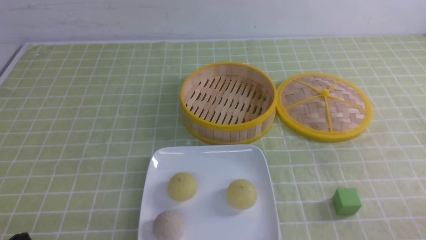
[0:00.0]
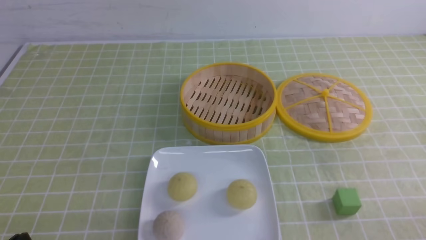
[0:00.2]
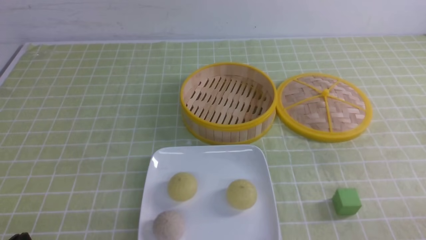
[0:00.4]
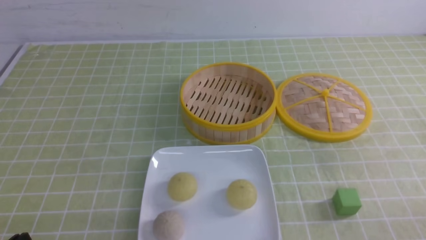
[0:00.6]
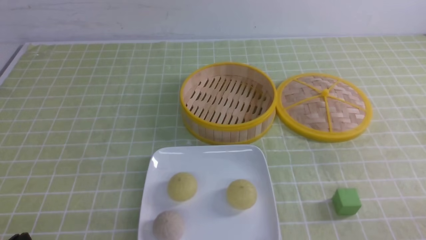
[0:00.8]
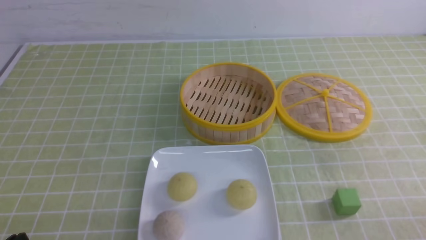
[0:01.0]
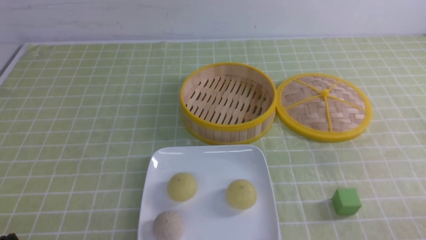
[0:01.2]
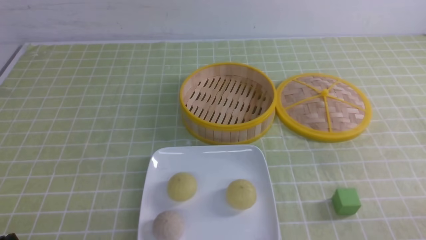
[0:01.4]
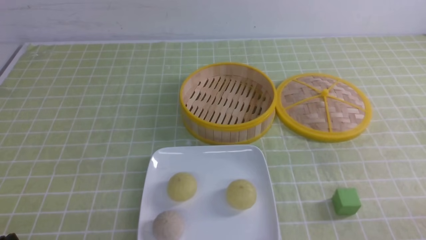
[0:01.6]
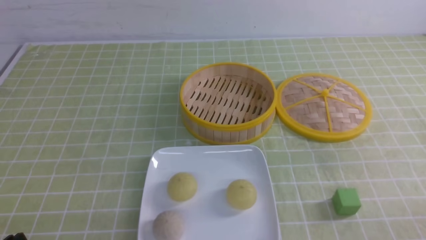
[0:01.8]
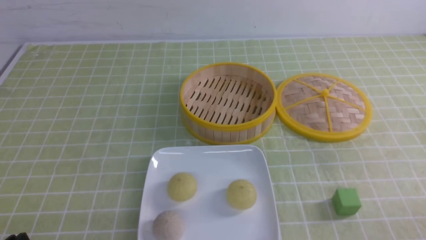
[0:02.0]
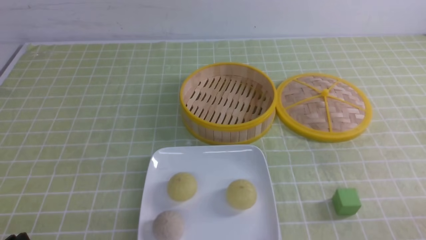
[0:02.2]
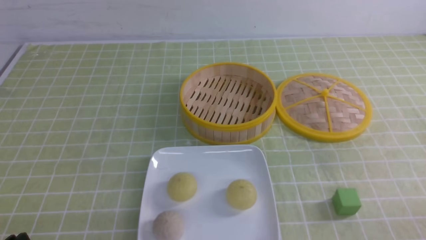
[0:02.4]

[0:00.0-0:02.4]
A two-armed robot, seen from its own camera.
0:00.0 to 0:01.2: Both grippers stay about where they are.
0:01.2 to 0:02.4: Both grippers stay about where they are.

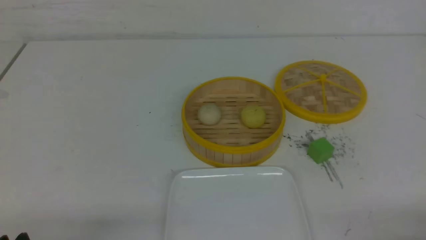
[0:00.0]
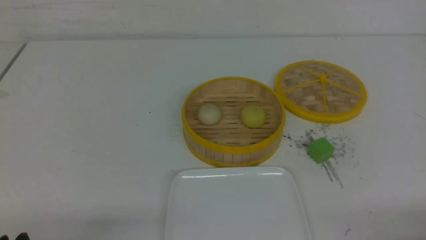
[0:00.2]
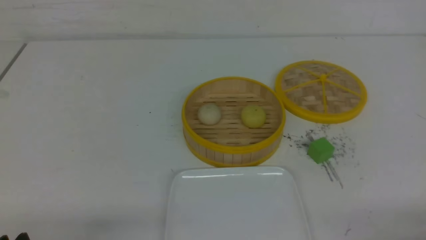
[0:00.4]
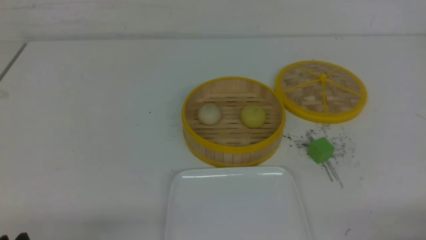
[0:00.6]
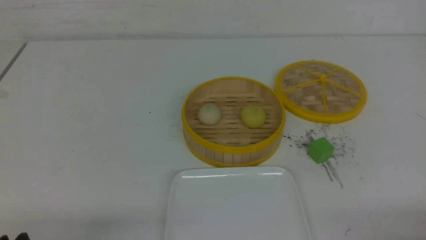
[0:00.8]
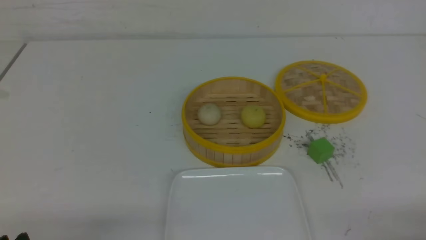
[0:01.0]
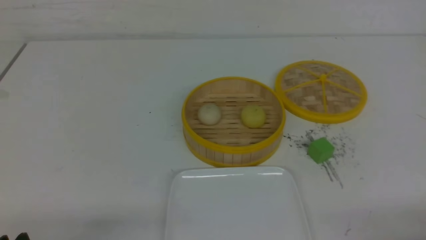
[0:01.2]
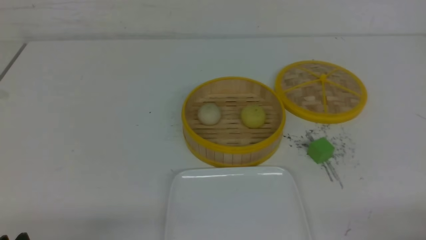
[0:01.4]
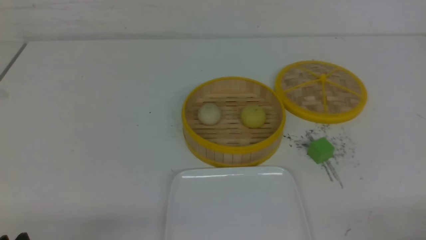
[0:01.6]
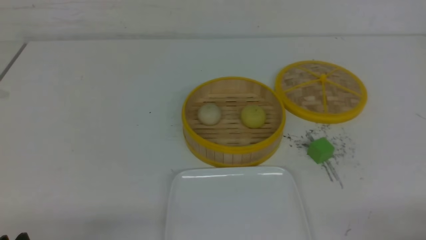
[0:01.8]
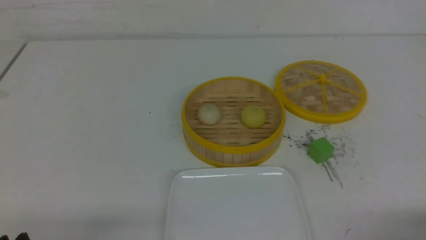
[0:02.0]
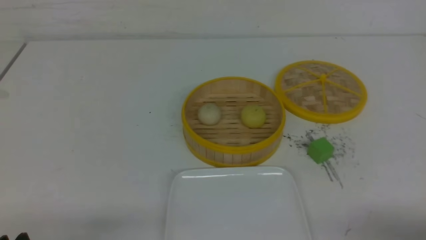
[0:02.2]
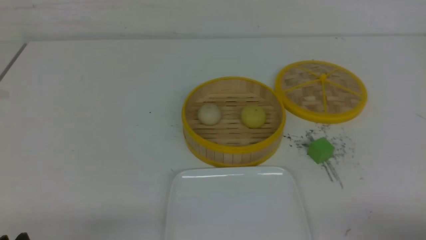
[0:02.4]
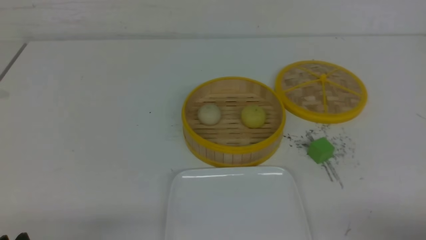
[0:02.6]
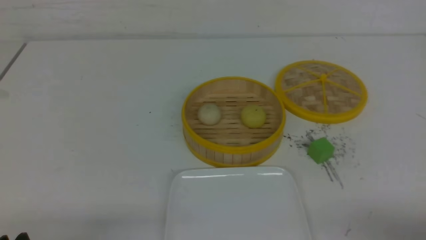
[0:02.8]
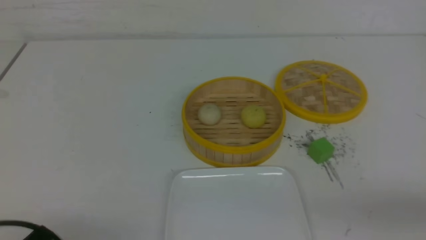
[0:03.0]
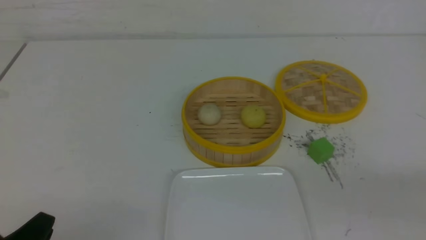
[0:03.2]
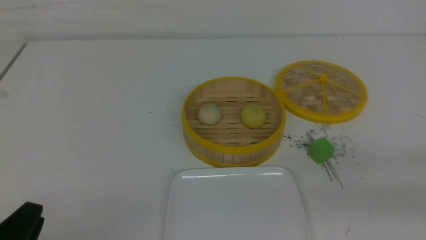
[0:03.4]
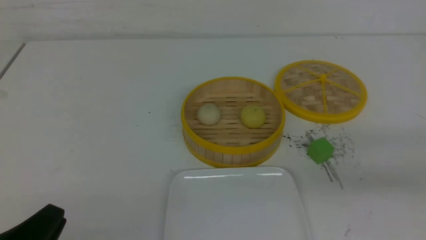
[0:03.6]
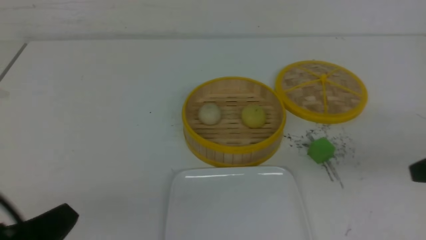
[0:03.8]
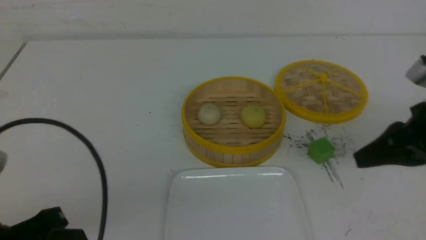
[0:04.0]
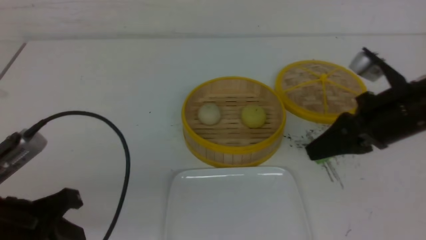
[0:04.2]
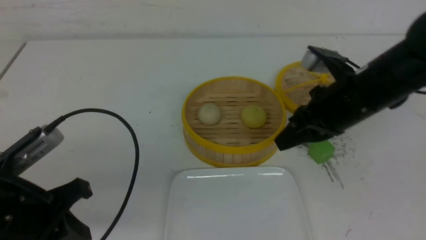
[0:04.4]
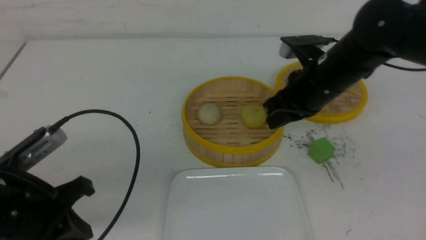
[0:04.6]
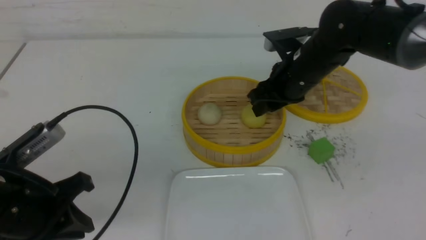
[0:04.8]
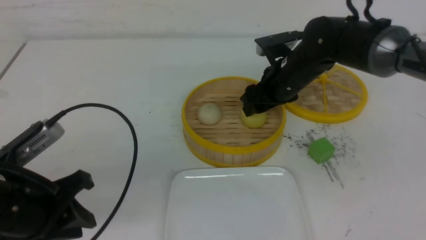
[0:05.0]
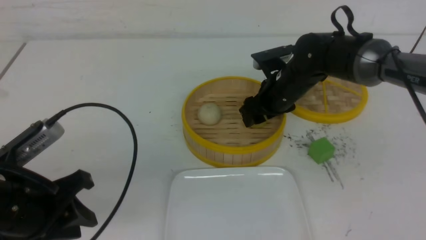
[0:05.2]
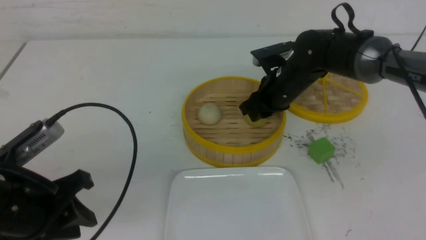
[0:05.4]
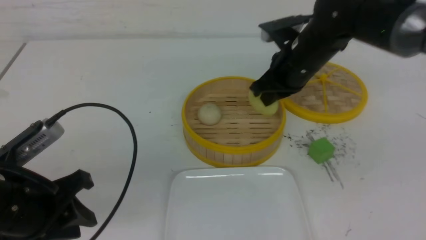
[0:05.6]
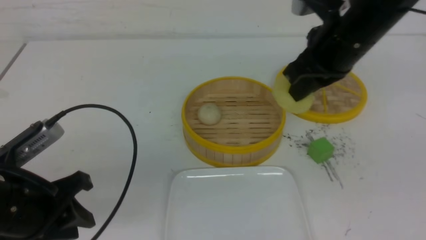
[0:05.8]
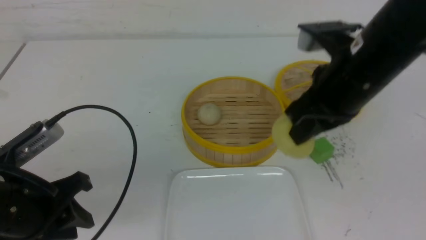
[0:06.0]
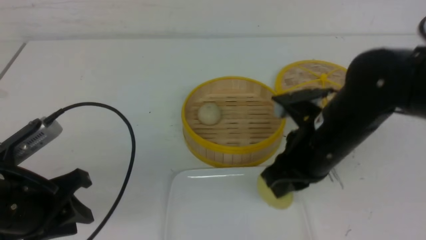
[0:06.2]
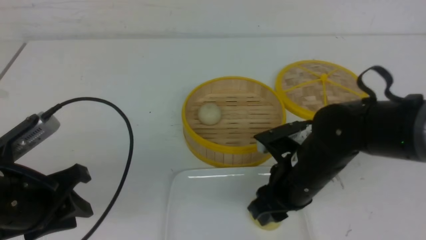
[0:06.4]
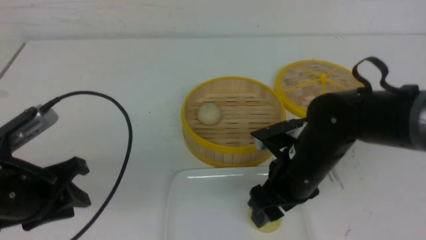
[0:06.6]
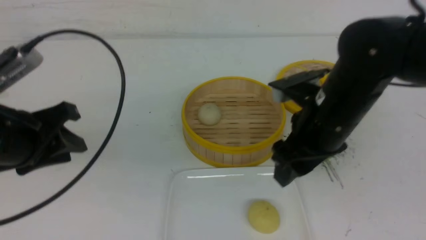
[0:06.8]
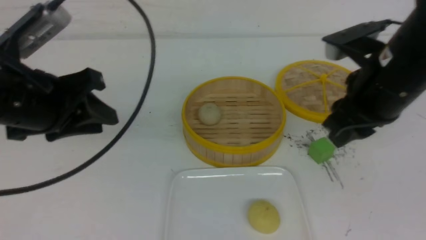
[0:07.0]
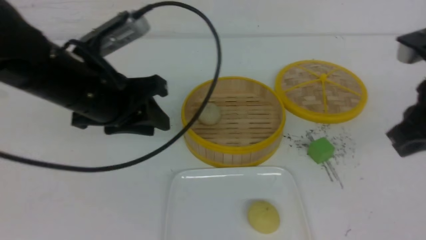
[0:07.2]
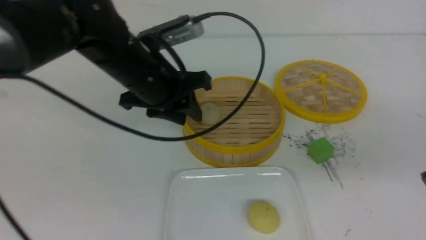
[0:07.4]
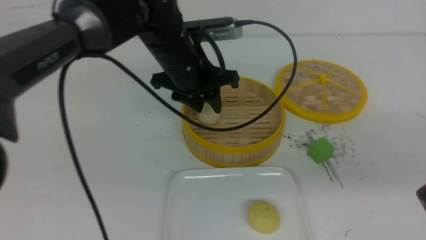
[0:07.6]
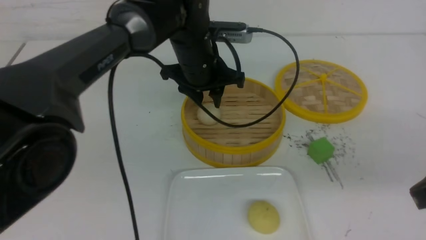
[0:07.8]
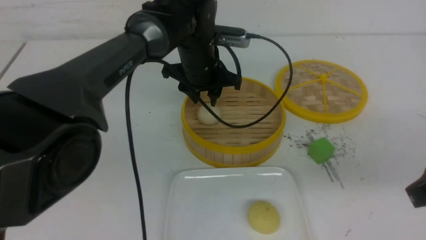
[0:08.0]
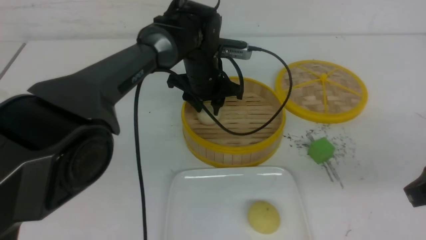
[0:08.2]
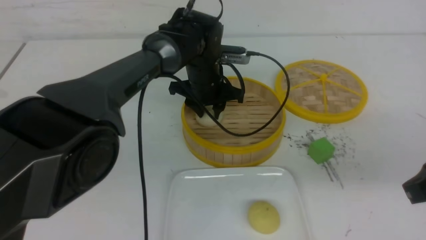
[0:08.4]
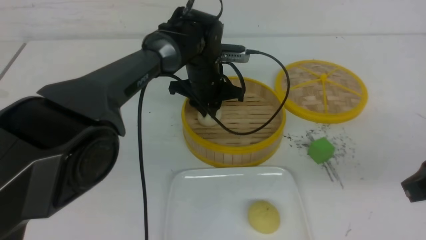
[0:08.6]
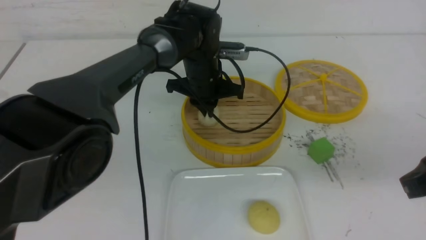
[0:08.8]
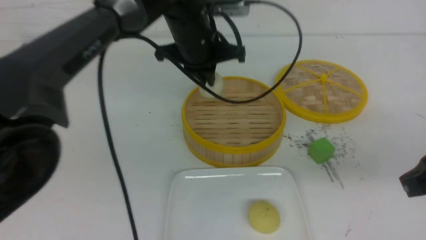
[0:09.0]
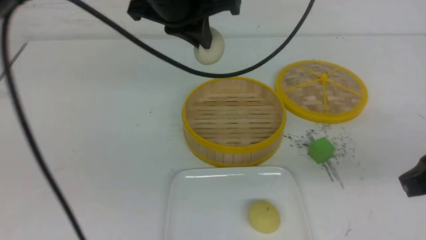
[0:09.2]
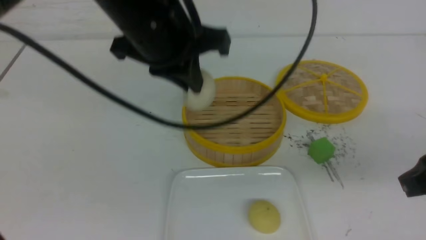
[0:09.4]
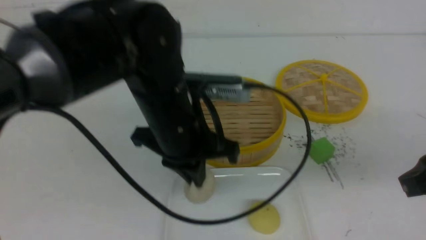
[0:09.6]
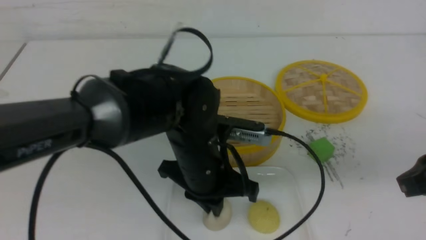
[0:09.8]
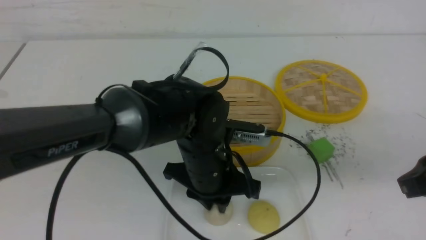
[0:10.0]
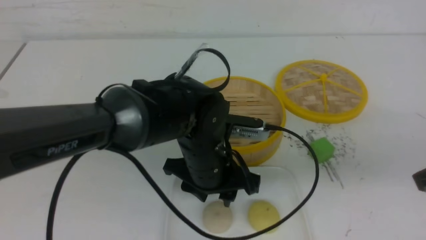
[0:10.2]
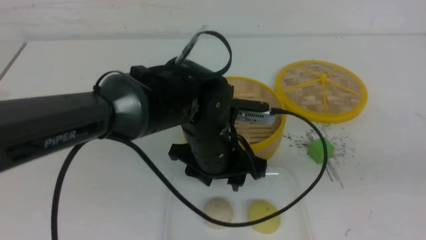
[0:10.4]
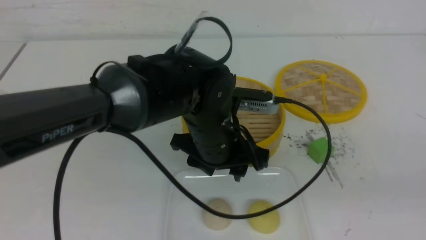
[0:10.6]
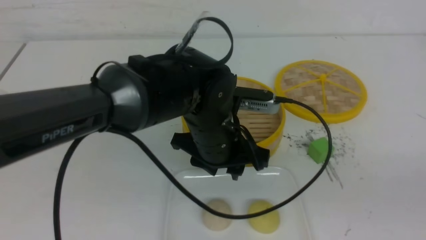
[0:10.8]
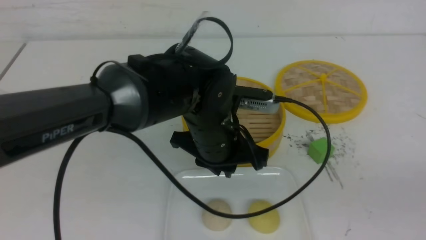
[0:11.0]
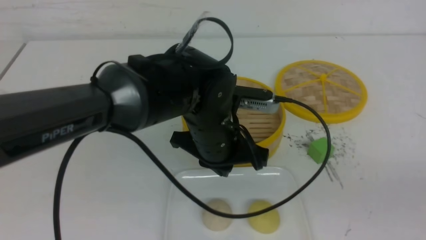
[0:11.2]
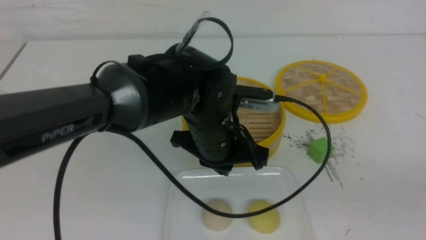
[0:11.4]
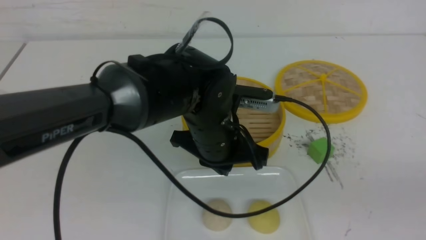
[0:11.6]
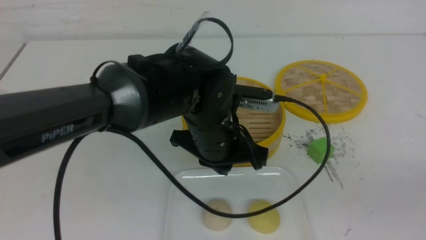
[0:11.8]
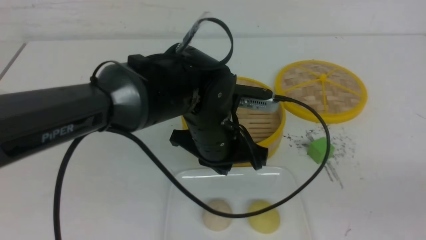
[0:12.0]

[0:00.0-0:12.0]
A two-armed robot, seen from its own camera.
Step, 0:00.0 to 0:05.4: use the right arm to grab the steamed stuffed bun that is closest to it.
Step, 0:05.6 to 0:06.6: use the right arm to put the steamed stuffed bun into the plate.
Step, 0:06.8 to 0:08.4: use the left arm to grab the steamed stuffed bun that is closest to it.
Step, 0:08.8 to 0:10.2: use the left arm to put the steamed stuffed bun into the plate.
0:00.0 to 0:01.6: Both grippers stay put.
0:03.0 to 0:04.4: The left gripper goes approximately 10 cm forward and upward, and closes up, while the right gripper is displaced forward and to the left by some 30 cm.
0:04.4 to 0:06.0: The left gripper opens, while the right gripper reaches about 10 cm forward, then returns, and opens, then closes again.
0:06.0 to 0:07.6: The right gripper shifts some 15 cm to the right and backward, and opens, then closes once more. Meanwhile the left gripper is displaced forward and to the right by approximately 30 cm.
0:07.6 to 0:09.0: The left gripper closes its fingers.
0:09.0 to 0:10.4: The left gripper shifts approximately 15 cm backward and downward, and opens its fingers, while the right gripper heads backward and upward, covering approximately 10 cm.
0:10.4 to 0:12.0: The left gripper closes up. Meanwhile the right gripper heads downward and backward, covering roughly 10 cm.

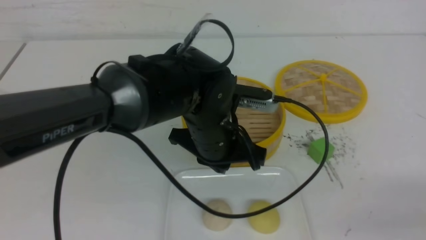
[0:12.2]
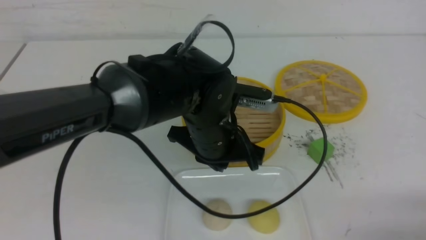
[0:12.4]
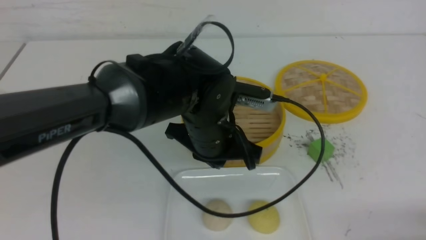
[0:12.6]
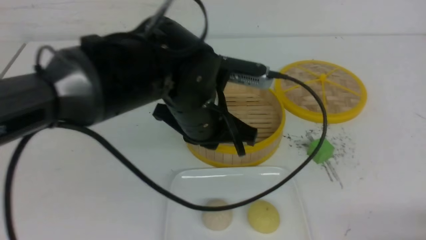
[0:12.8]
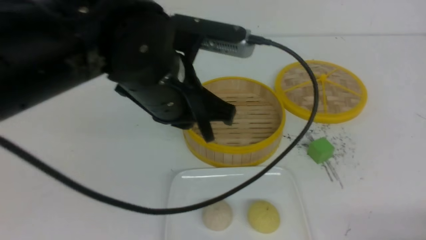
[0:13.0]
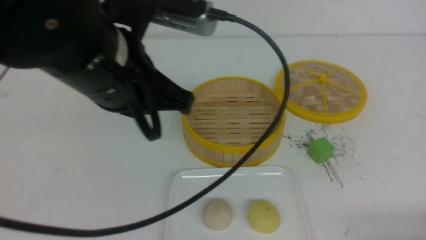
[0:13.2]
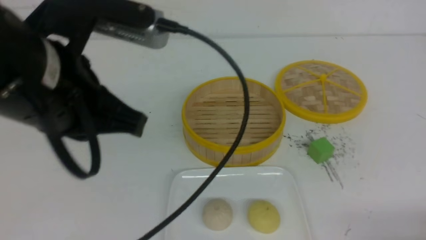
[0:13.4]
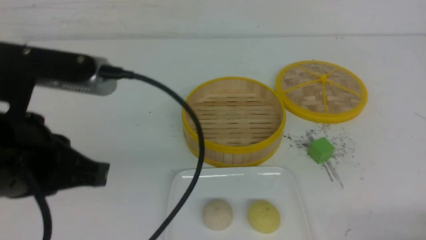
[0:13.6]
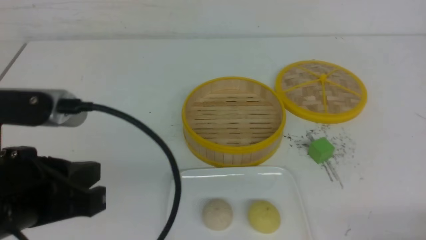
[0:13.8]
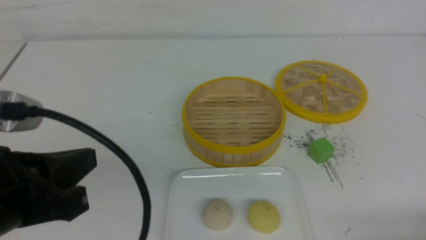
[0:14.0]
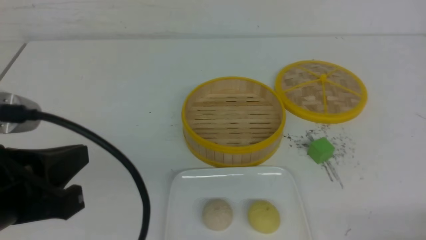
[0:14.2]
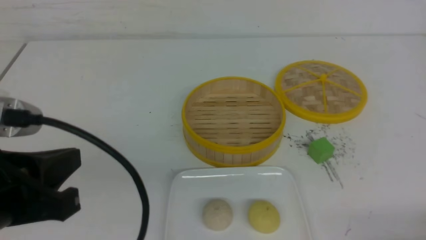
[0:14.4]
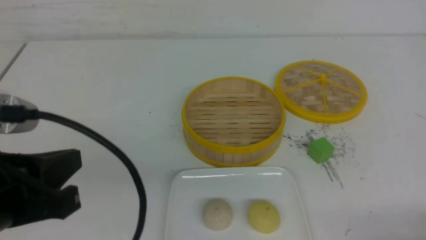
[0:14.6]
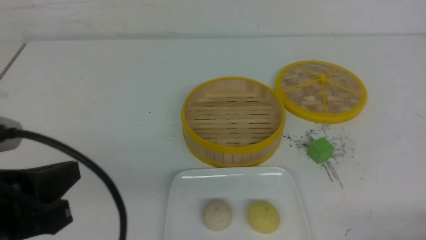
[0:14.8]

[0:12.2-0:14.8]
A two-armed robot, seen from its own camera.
0:12.2 to 0:13.4: The left gripper is displaced upward, to the left and backward by approximately 20 cm. The right gripper shifts some 5 cm downward.
0:13.4 to 0:14.8: The left gripper goes roughly 15 cm backward, downward and to the left.
